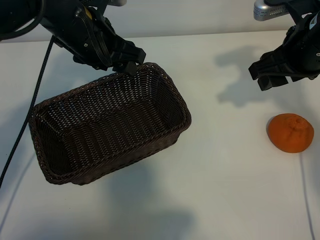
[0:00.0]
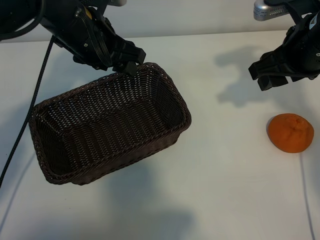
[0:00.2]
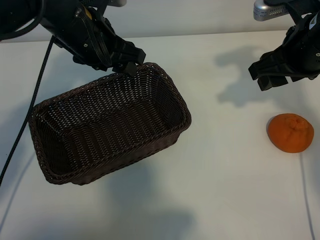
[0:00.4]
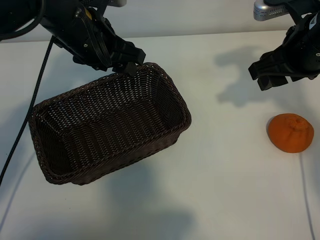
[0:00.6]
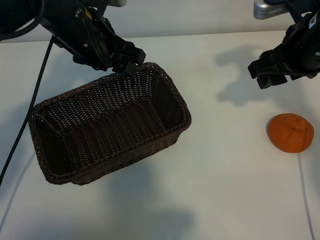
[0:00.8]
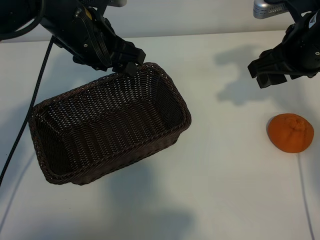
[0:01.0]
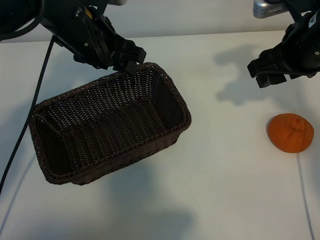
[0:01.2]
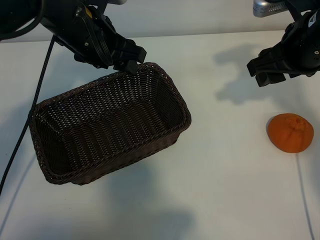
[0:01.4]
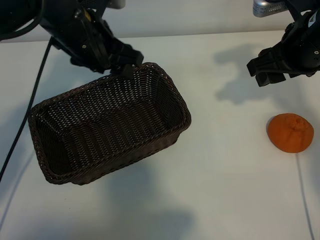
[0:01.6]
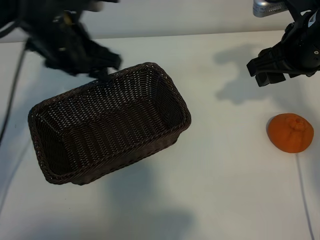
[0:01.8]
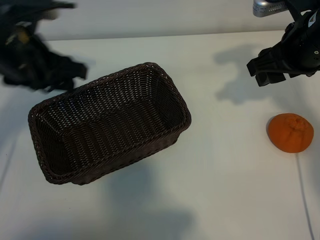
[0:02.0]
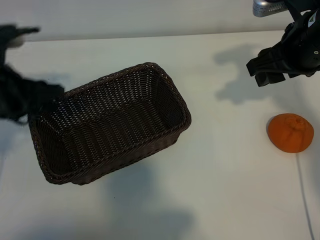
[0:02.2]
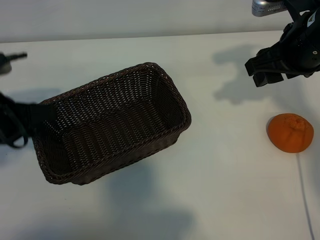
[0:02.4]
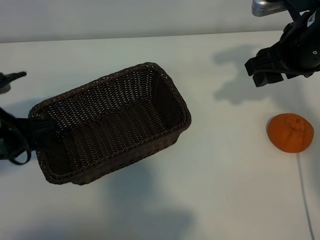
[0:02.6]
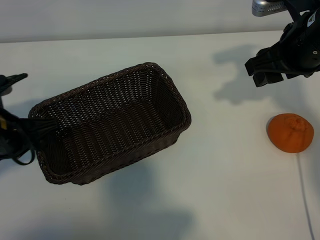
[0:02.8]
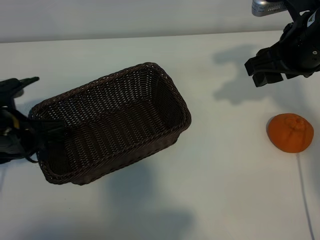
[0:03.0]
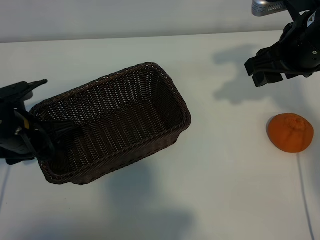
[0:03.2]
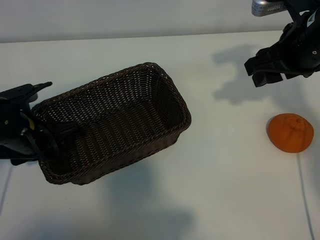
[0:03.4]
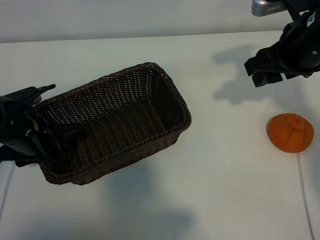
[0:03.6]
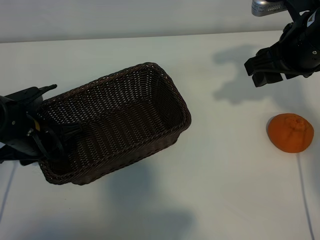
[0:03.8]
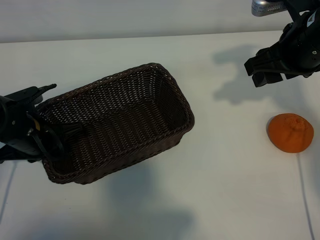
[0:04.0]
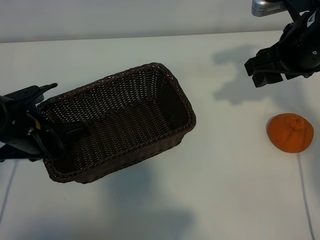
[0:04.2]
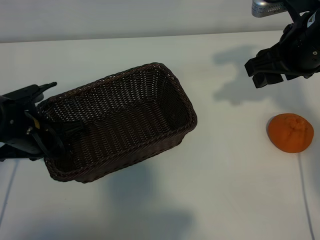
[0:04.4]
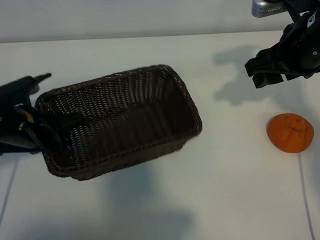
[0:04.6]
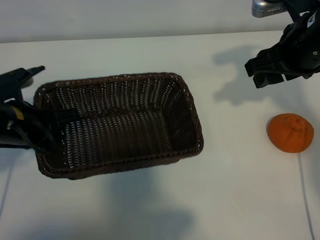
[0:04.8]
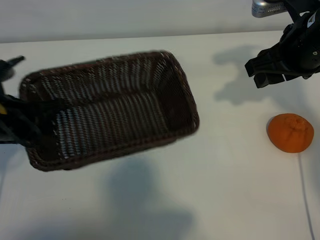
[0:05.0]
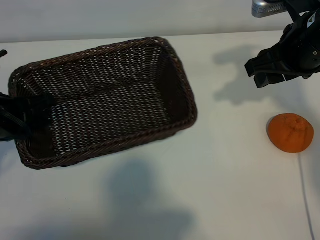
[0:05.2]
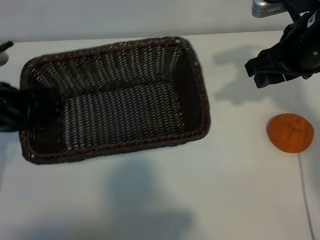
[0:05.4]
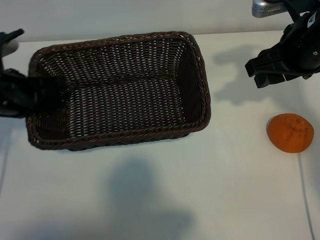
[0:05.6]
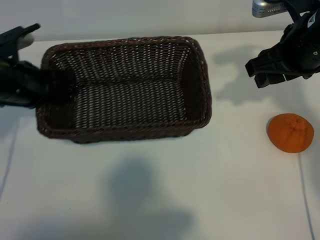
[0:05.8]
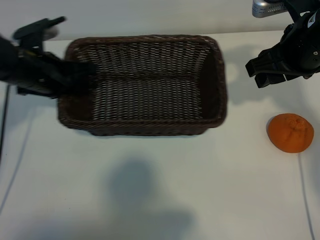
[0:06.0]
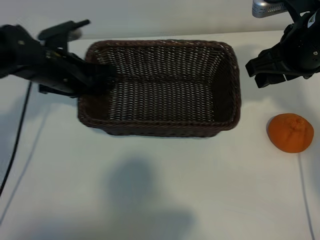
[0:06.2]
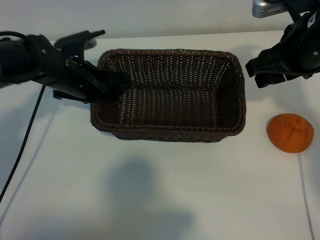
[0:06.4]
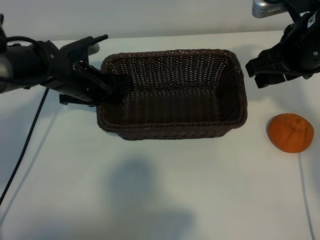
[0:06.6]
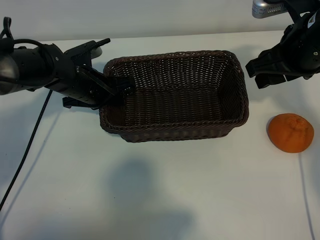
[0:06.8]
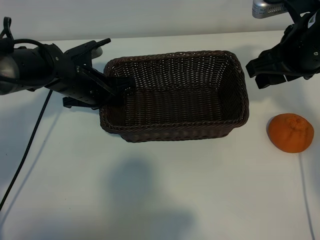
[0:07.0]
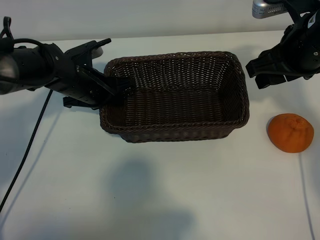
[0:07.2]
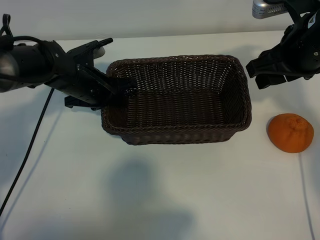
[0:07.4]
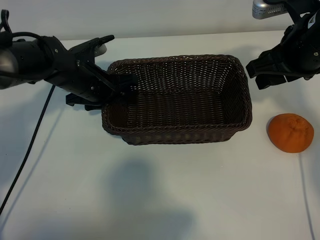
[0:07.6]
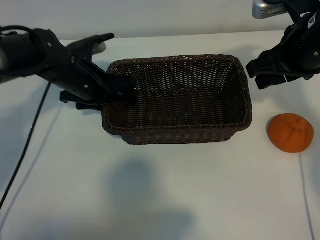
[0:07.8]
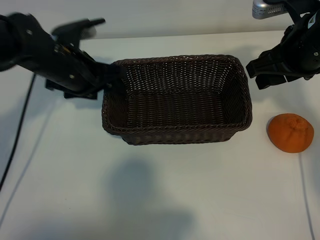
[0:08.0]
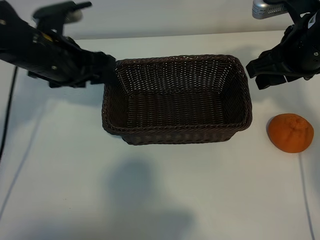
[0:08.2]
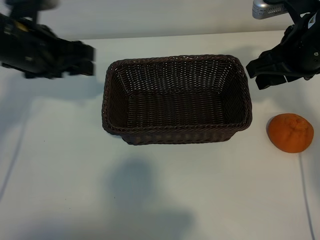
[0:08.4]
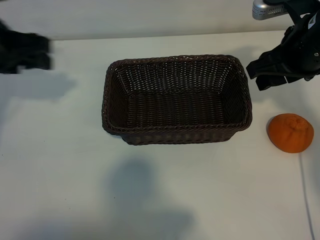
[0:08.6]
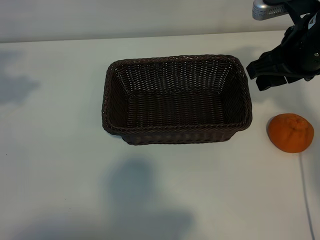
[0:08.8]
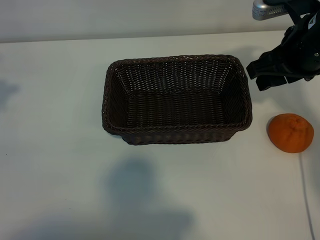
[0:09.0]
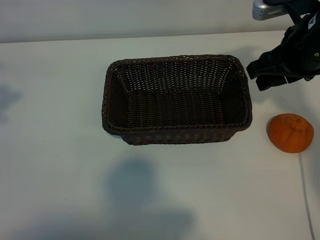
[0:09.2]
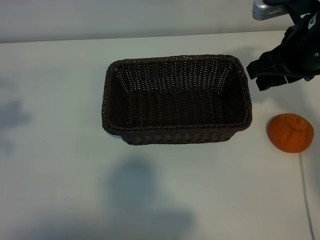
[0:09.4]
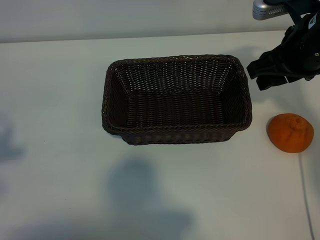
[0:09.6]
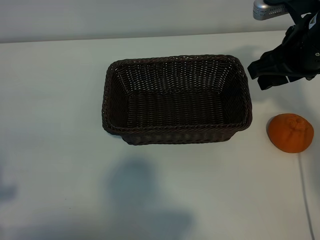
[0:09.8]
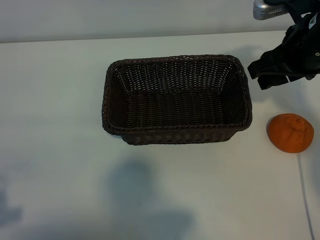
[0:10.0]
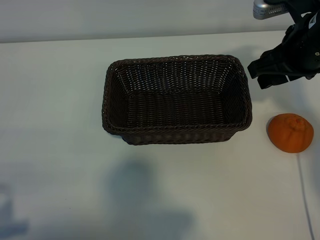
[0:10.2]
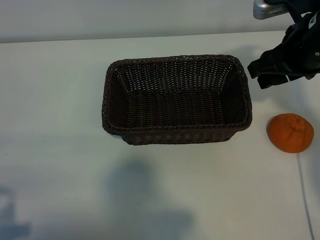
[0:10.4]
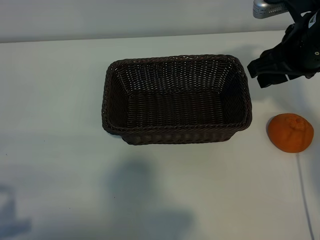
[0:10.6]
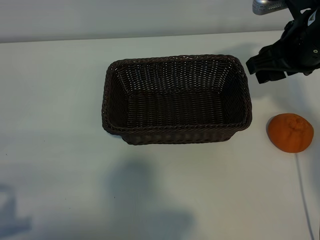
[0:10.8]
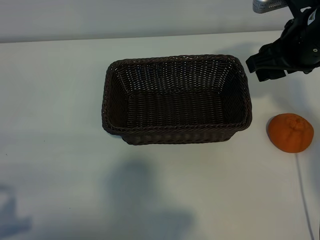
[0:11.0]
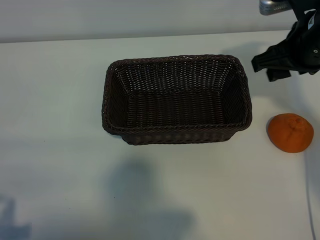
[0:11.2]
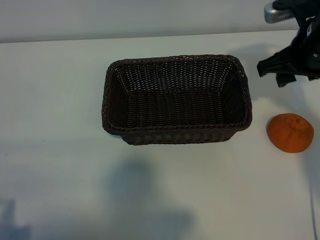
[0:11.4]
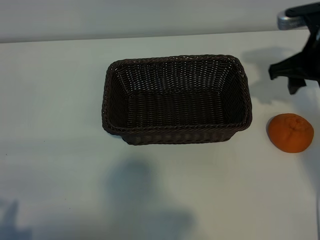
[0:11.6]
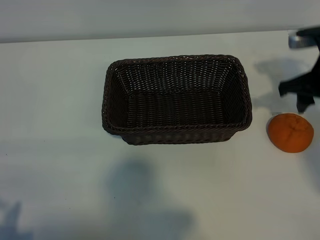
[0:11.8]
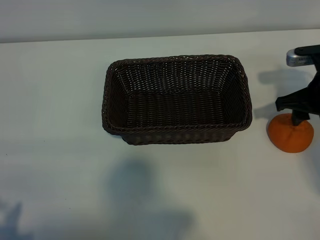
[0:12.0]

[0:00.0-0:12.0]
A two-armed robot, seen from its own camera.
Task of the whole recording: pick up the orange and put it into the basket.
Step, 0:00.8 to 0:04.0: Grasp the basket with left gripper.
Step, 0:04.2 to 0:07.2: Place the basket in the center of view with left gripper.

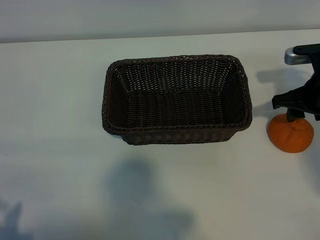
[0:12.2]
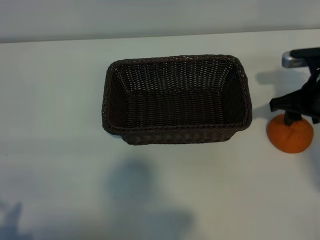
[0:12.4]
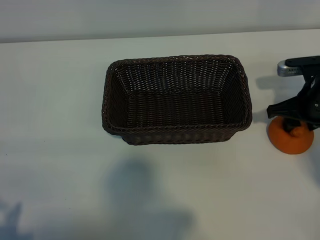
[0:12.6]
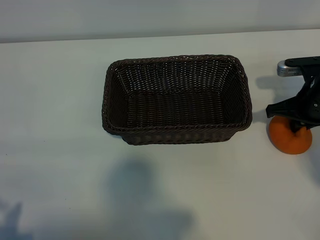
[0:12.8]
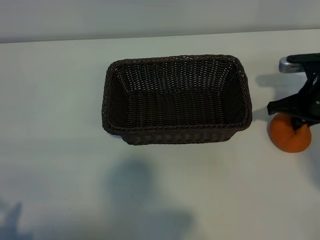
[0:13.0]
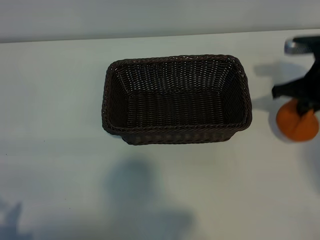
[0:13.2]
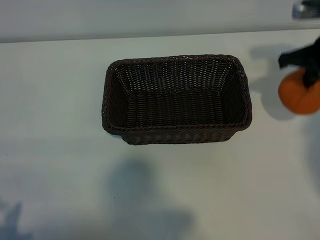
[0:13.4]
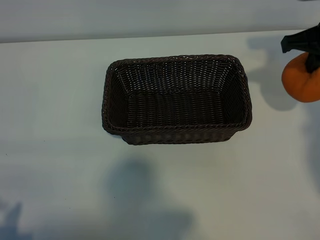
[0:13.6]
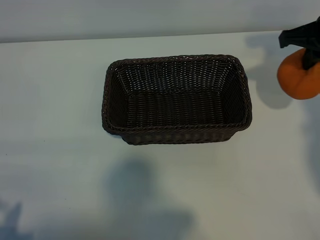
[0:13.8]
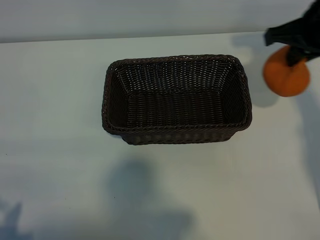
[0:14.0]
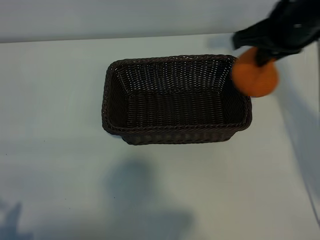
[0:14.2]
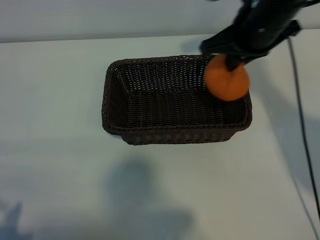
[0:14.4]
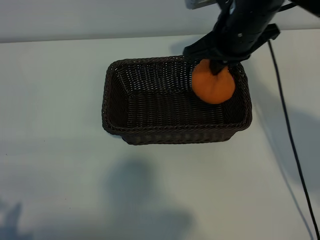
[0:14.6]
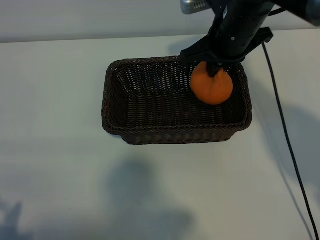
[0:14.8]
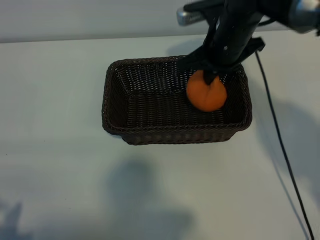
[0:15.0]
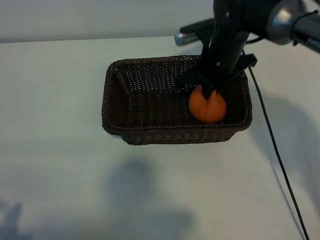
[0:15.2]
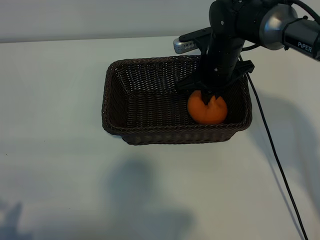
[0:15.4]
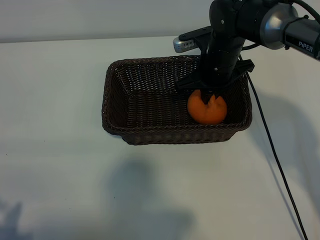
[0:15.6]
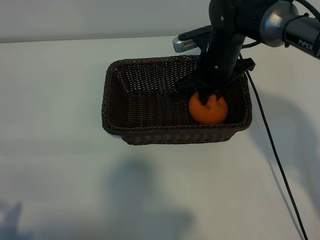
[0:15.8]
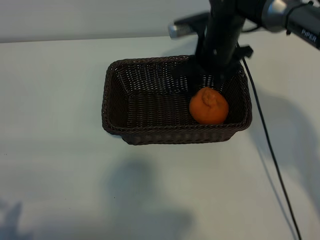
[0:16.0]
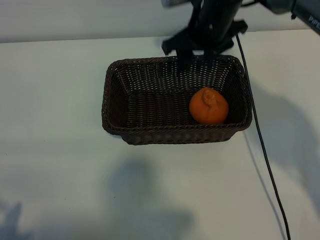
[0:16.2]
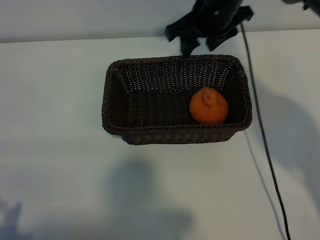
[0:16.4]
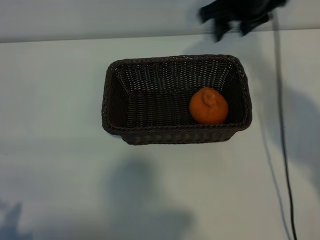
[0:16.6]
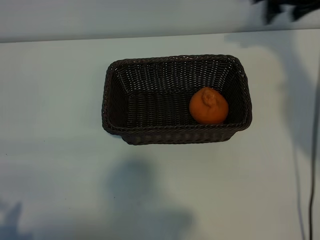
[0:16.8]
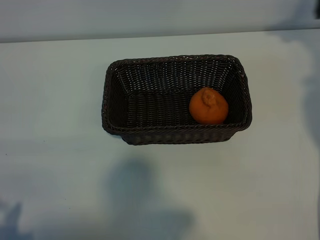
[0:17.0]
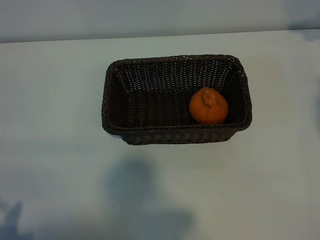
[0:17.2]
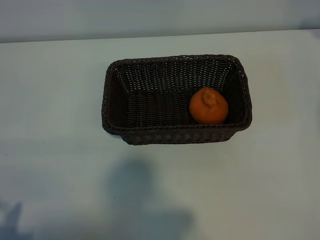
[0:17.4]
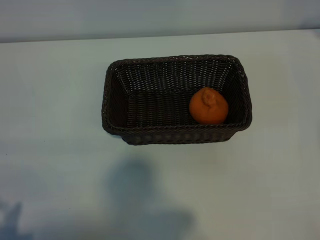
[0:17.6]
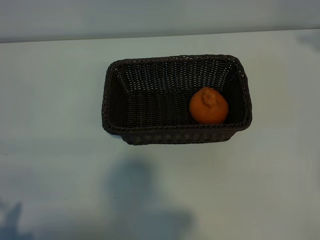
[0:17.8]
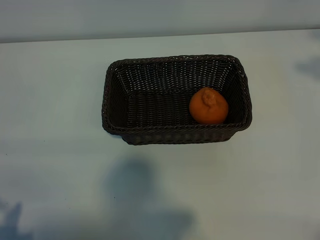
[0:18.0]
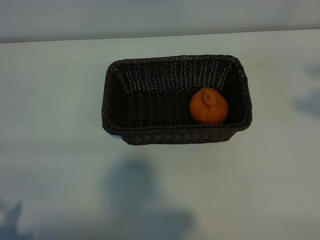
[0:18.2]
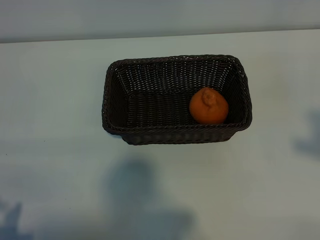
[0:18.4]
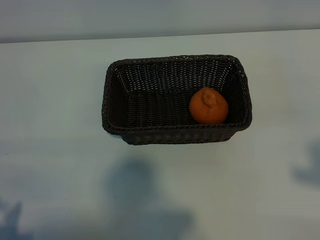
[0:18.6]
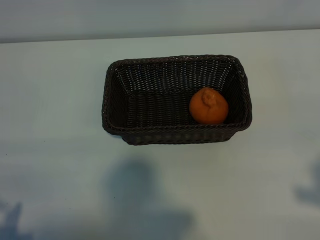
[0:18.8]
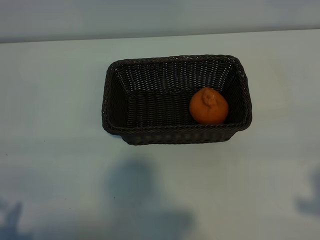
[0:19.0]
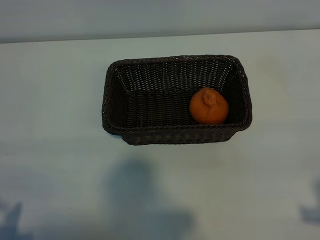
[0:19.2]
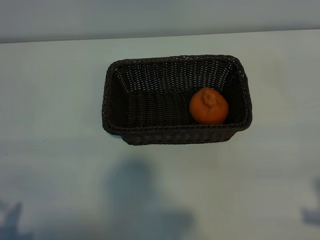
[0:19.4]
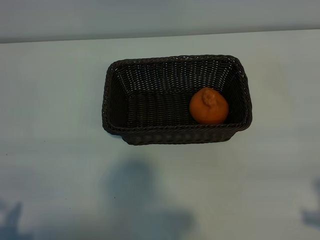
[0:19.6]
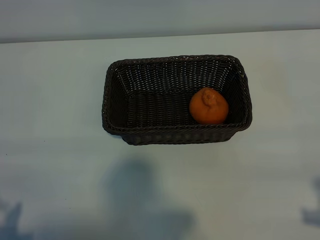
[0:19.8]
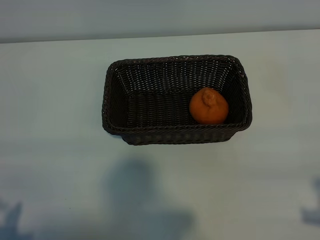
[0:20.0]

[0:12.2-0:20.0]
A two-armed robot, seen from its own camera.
Task of the whole recording: pick up the orange and put it into the basket.
Step, 0:13.0 to 0:15.8: Place the orange in the basket with right gripper.

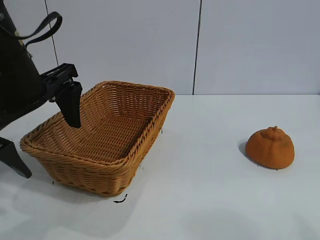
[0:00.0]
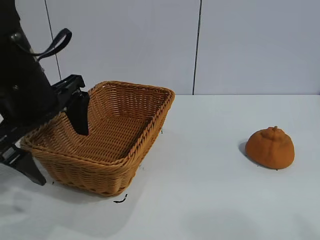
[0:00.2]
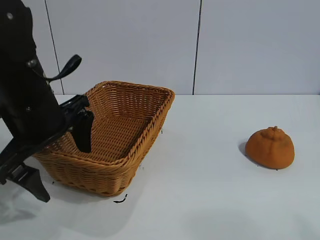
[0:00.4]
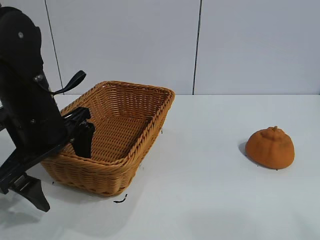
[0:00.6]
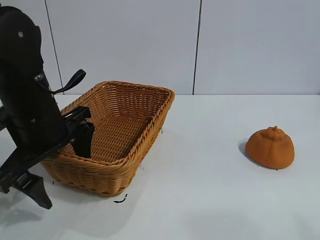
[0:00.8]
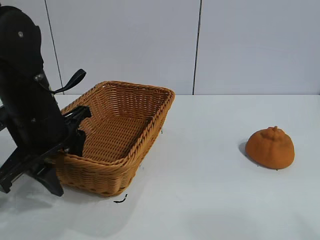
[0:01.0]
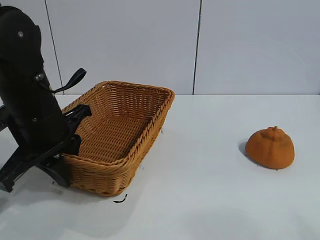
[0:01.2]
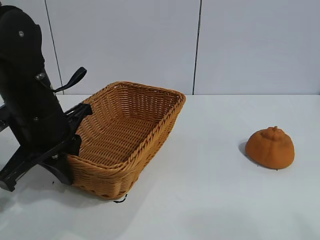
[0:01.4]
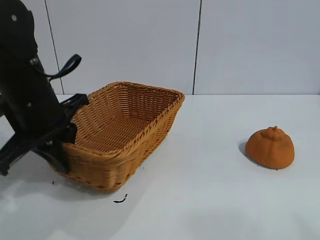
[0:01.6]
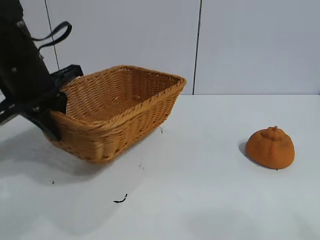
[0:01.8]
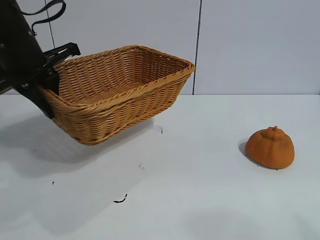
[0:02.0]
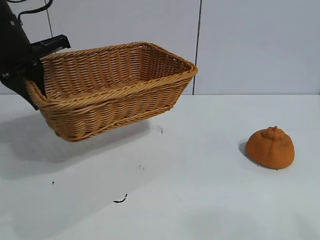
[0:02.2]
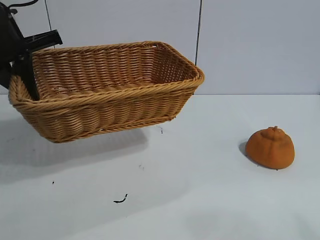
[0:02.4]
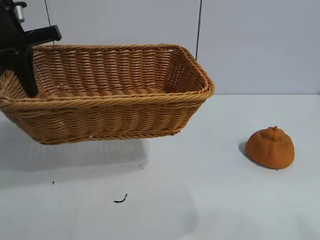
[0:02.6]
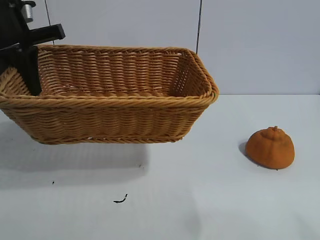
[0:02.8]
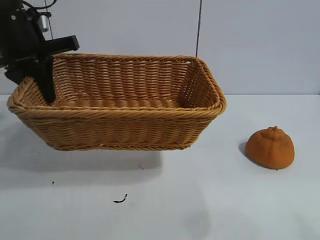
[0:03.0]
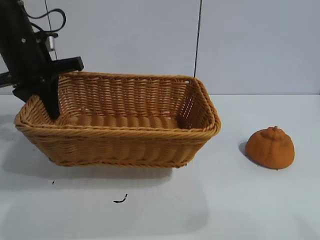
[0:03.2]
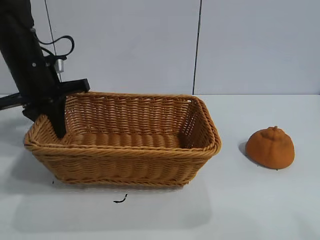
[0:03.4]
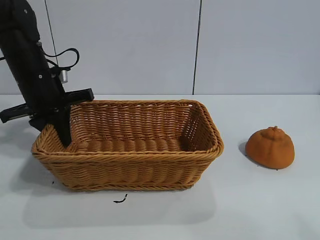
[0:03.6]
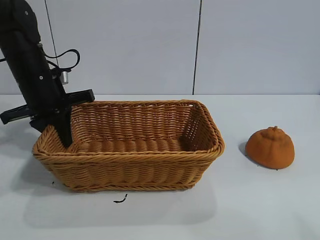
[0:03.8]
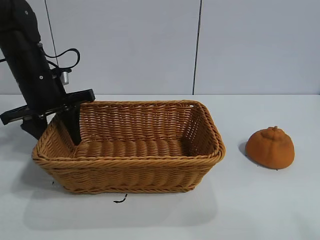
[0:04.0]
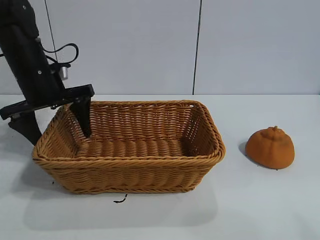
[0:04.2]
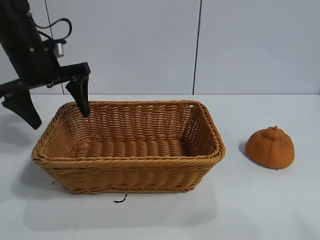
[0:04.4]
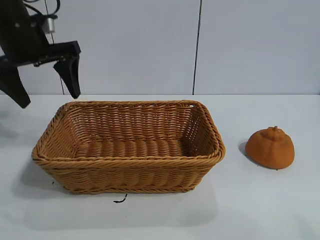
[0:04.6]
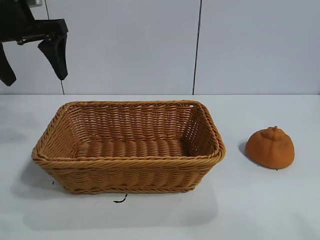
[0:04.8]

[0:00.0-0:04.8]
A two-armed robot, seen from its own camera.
Task of the whole recording: pick up the orange and put it into the basket.
Step, 0:01.4 to 0:04.2: Place the basket in the center of view with left gripper.
